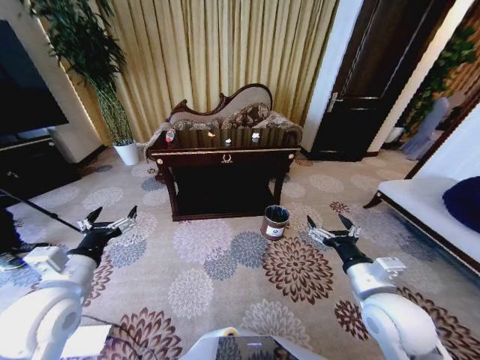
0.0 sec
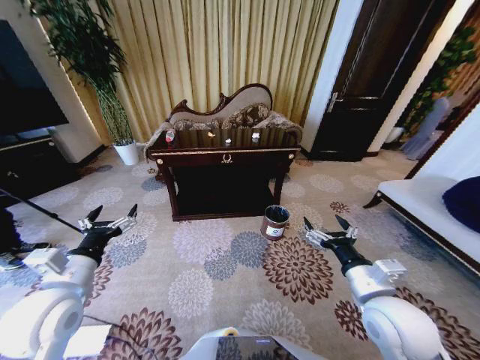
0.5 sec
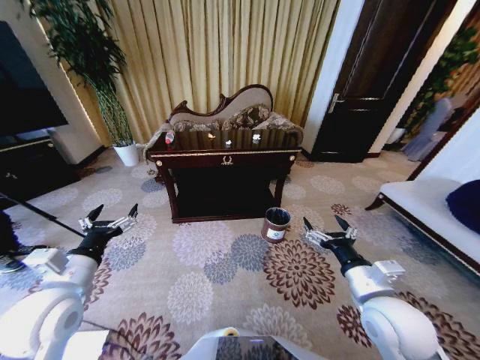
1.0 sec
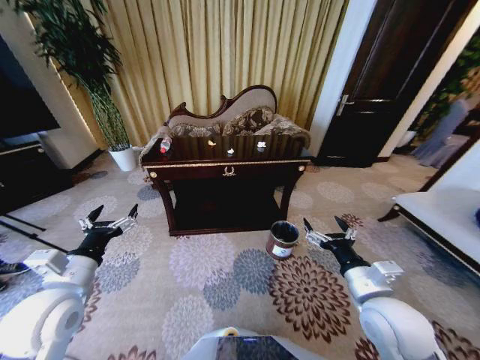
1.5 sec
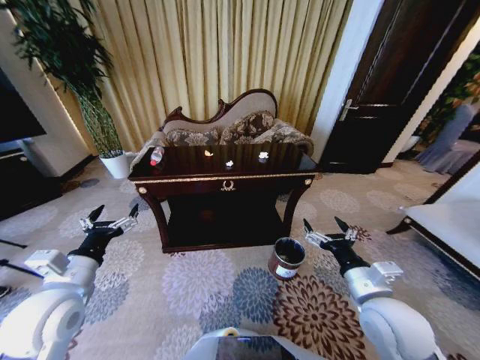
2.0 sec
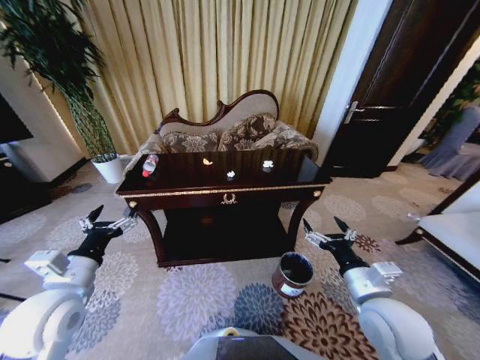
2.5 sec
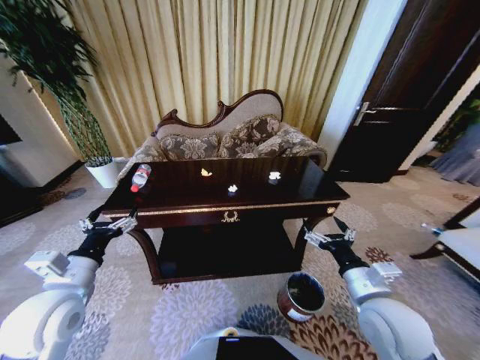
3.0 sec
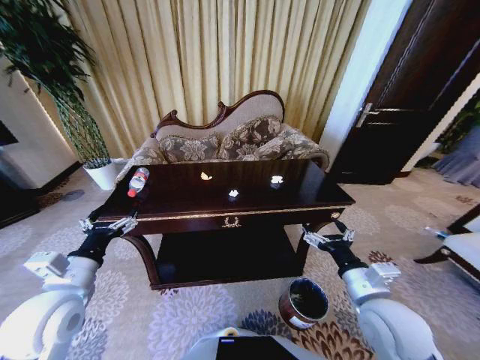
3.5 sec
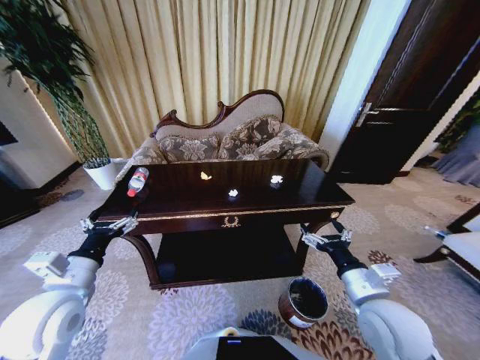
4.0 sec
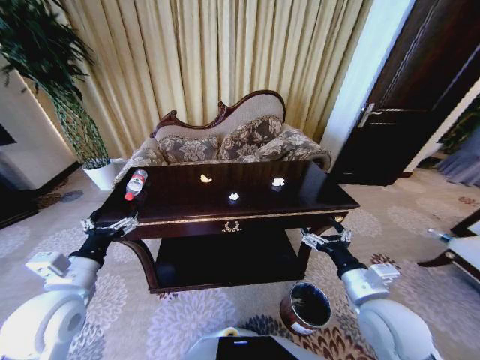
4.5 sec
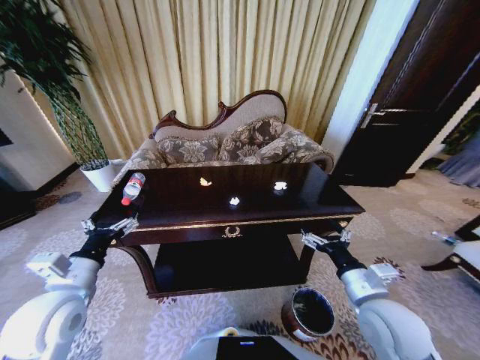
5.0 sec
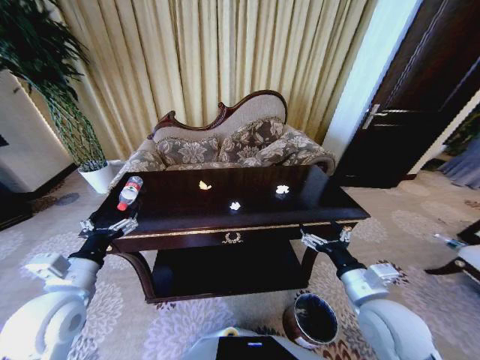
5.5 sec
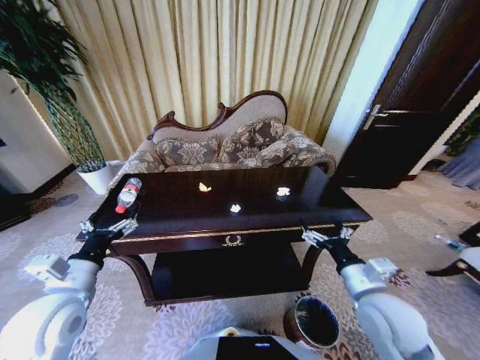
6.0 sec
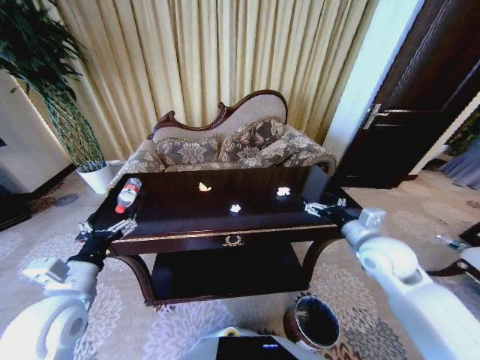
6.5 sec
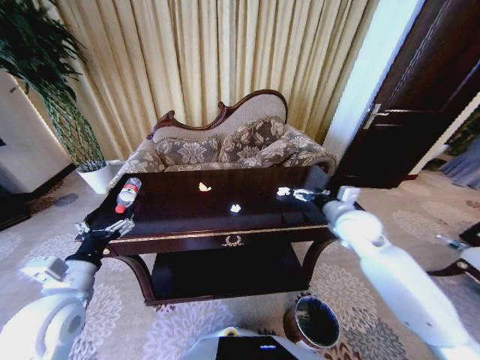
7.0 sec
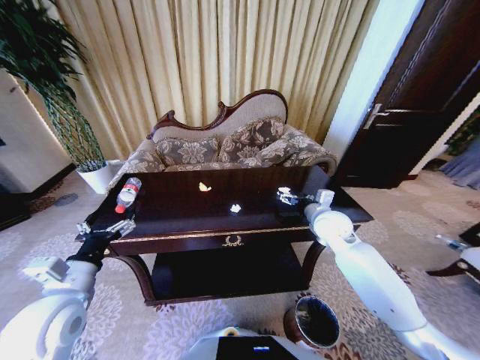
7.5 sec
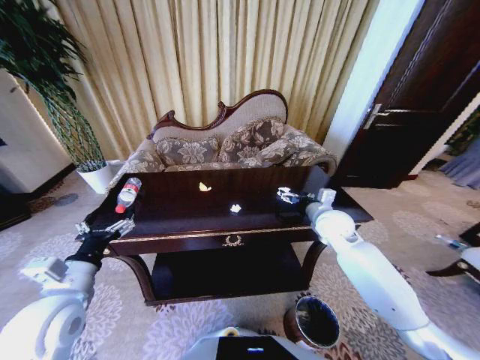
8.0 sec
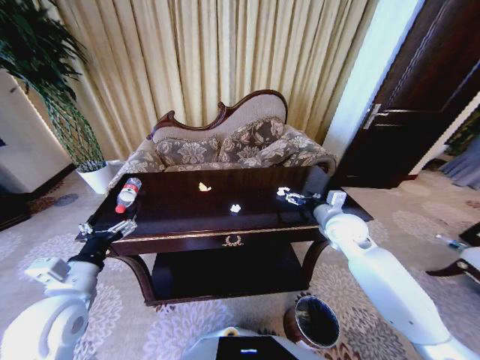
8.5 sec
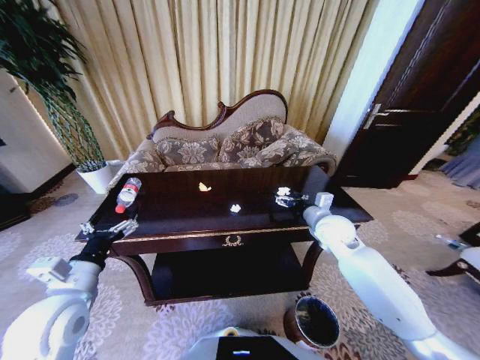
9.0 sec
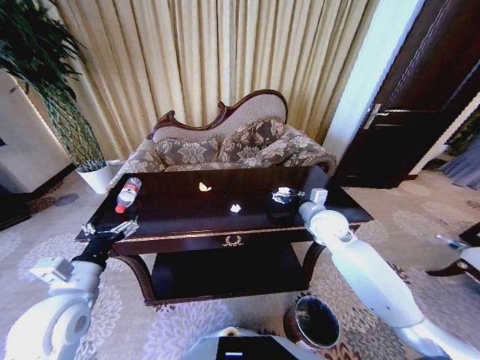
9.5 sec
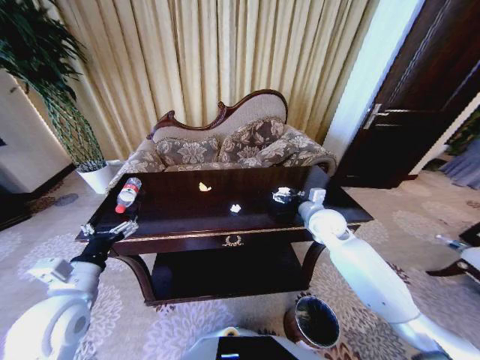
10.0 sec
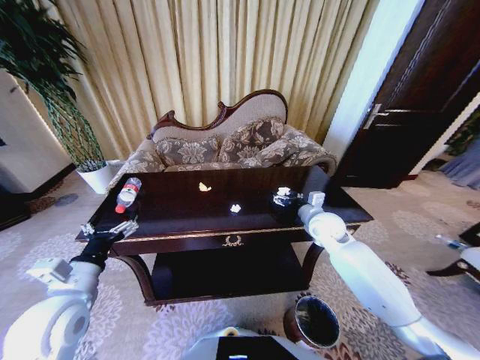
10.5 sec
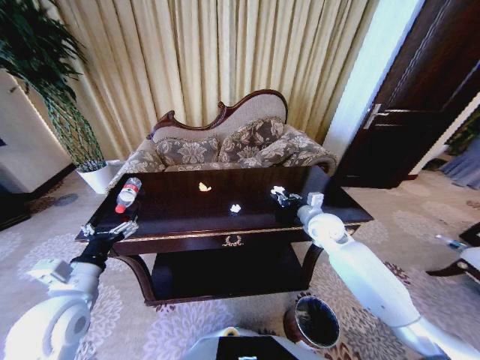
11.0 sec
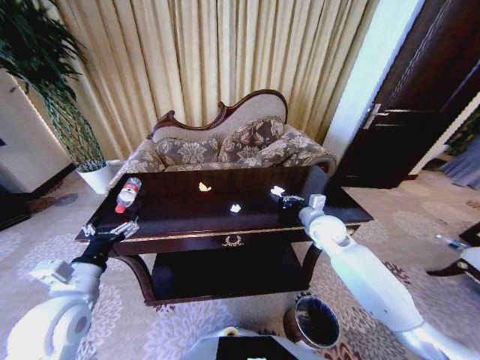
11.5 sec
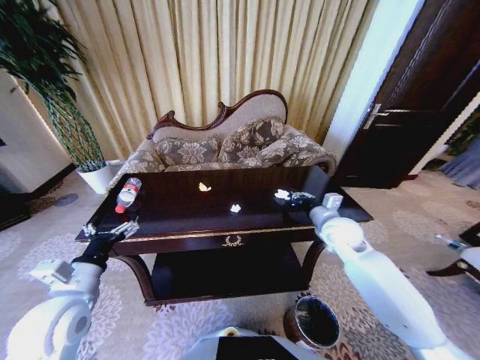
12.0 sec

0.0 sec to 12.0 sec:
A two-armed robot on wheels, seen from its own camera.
Task of the whole recording: Move to the front of the table and place the trash on the table into the trash bin.
6.0 sec to 8.0 sec: The right gripper travels forward by approximately 25 cm.
8.0 sec to 10.0 sec: There are only small adjustments of the grippers.
10.0 sec to 12.0 sec: The right gripper ends up some 5 cm from where it was, and closes up.

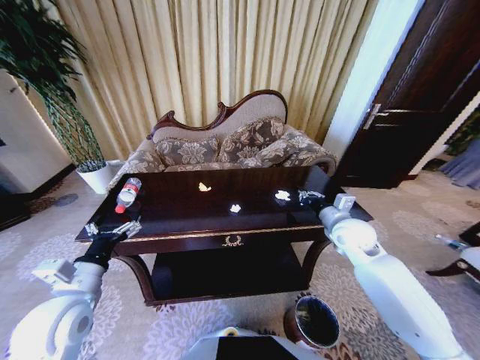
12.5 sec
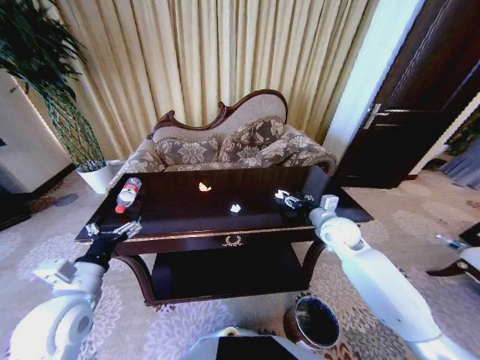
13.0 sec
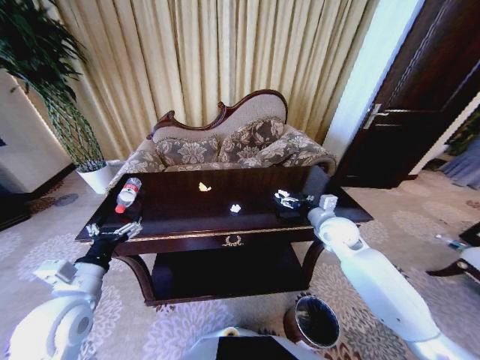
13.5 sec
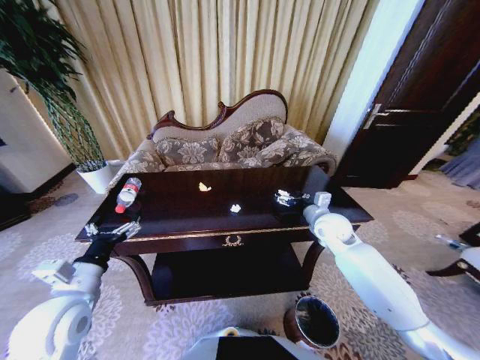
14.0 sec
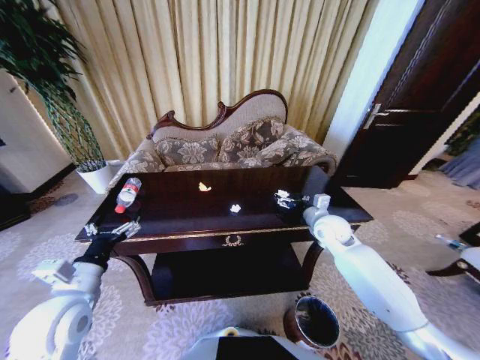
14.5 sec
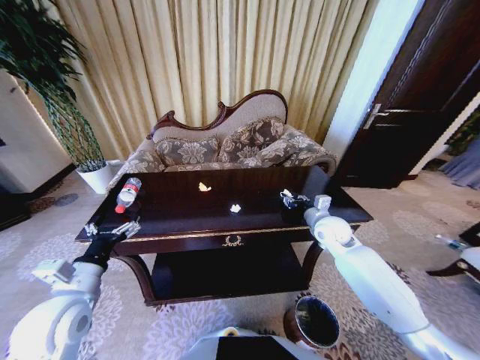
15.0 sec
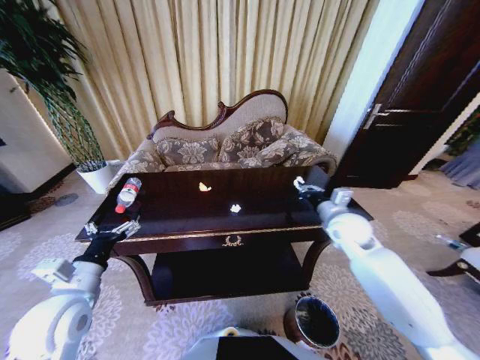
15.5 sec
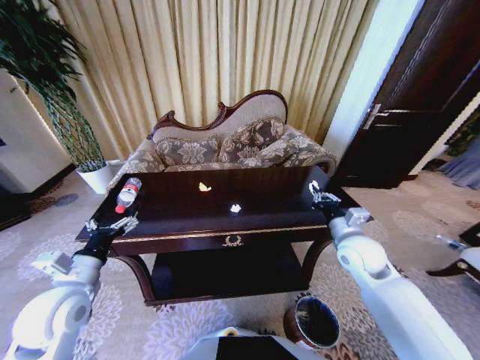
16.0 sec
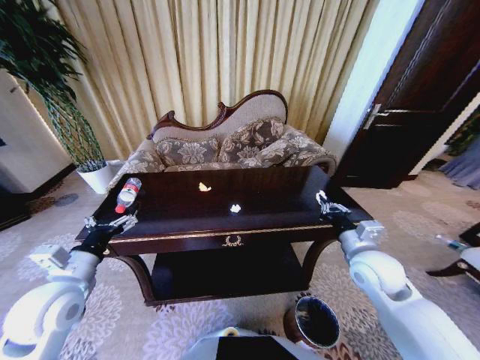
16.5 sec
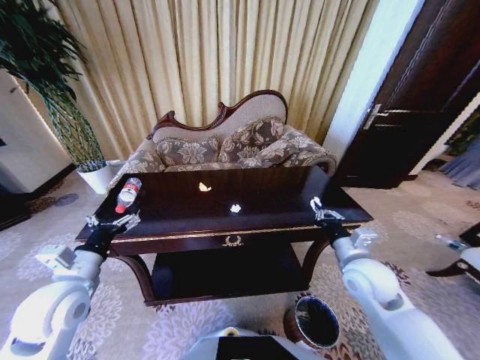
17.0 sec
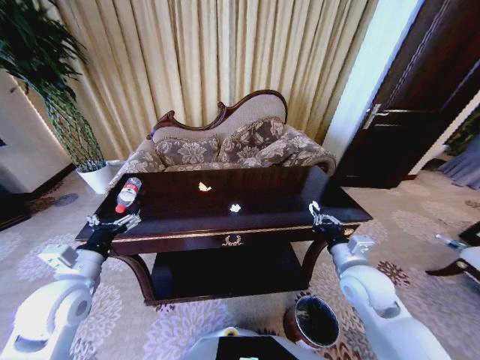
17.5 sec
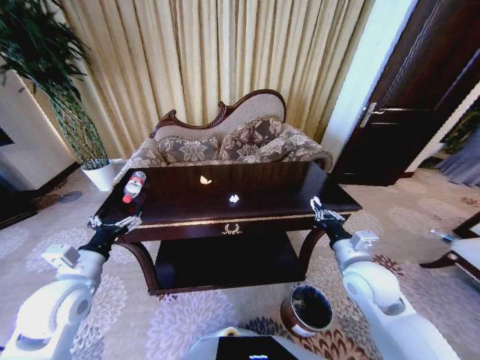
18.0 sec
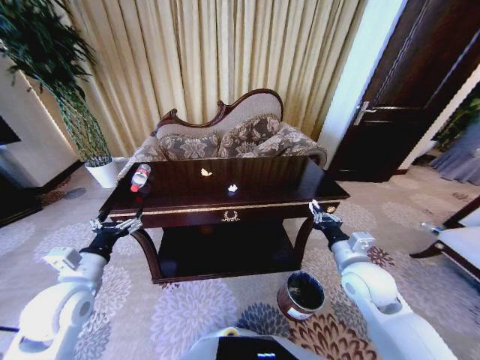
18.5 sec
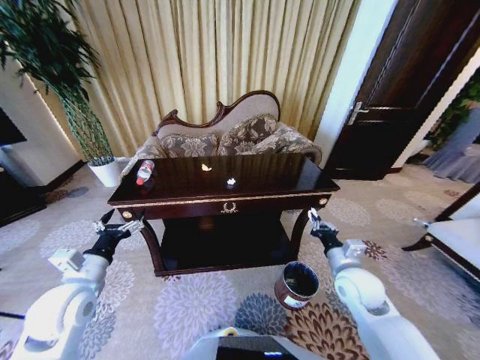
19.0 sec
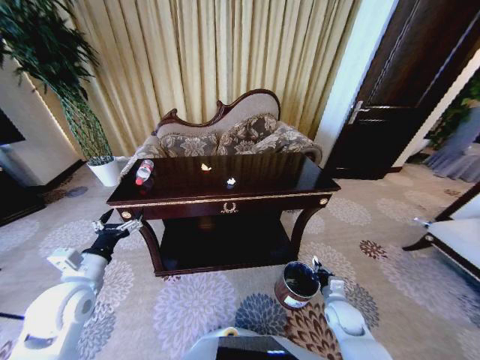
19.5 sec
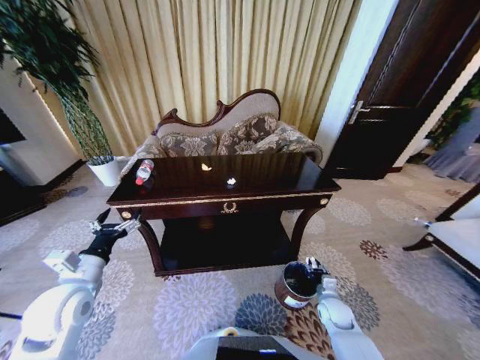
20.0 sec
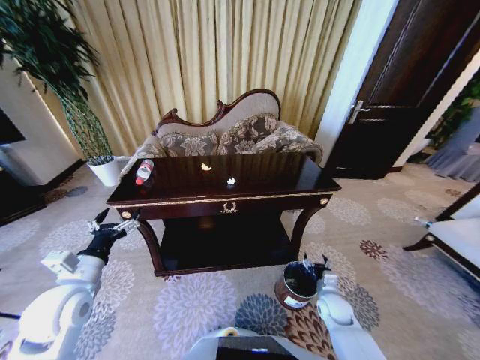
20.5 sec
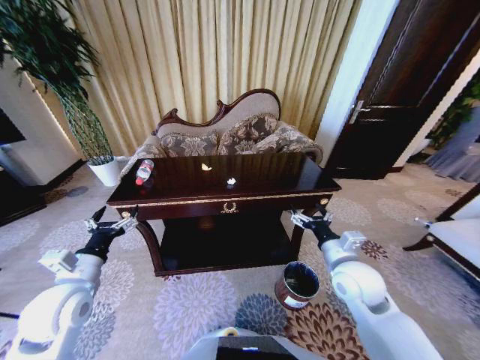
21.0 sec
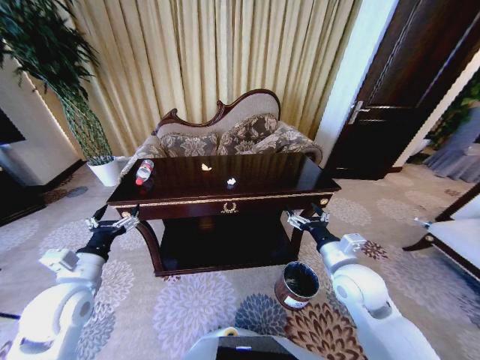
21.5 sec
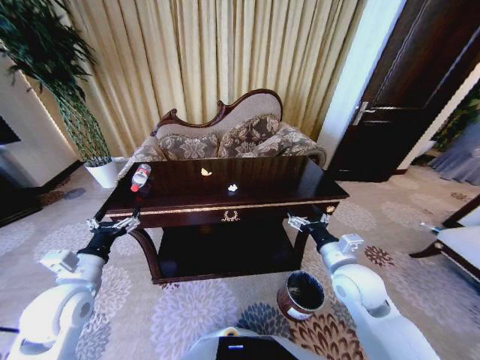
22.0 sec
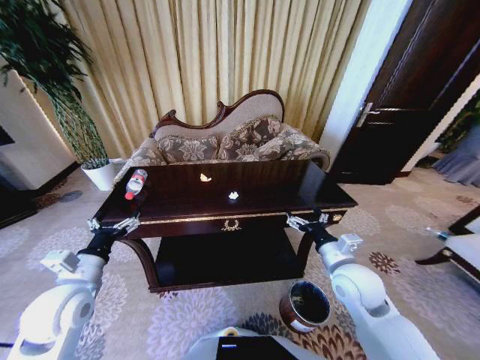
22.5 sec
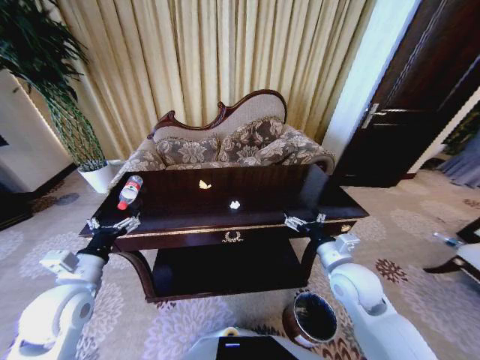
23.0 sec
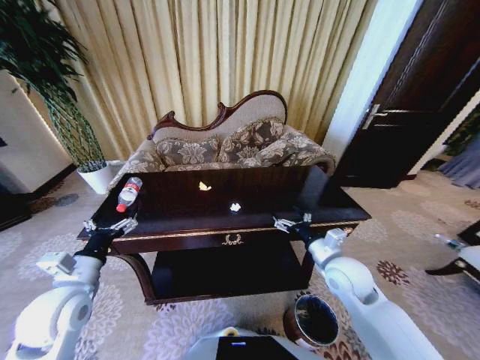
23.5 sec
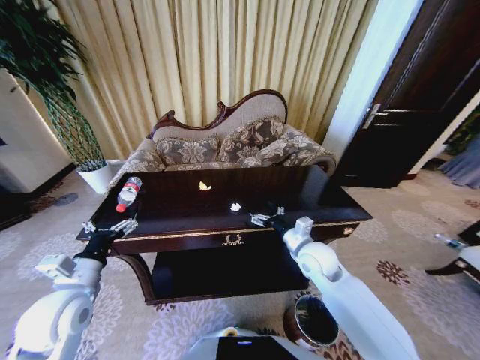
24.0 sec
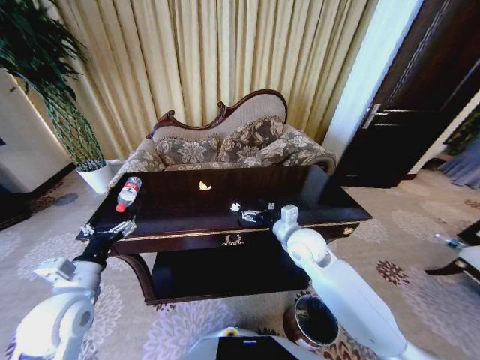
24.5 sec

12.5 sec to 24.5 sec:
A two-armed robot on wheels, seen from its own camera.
Task of the whole recording: Move to the front of the table and place the trash on the table into the trash bin.
12.5 sec to 14.5 sec: The right gripper moves some 5 cm, and opens its fingers.
14.5 sec to 16.5 sec: The right gripper shifts approximately 15 cm backward, and closes.
18.5 sec to 20.5 sec: The right gripper moves downward, approximately 20 cm, and opens up.
20.5 sec to 22.5 sec: The right gripper moves upward, roughly 20 cm.
22.5 sec to 24.5 sec: The right gripper moves forward and to the left, roughly 15 cm.

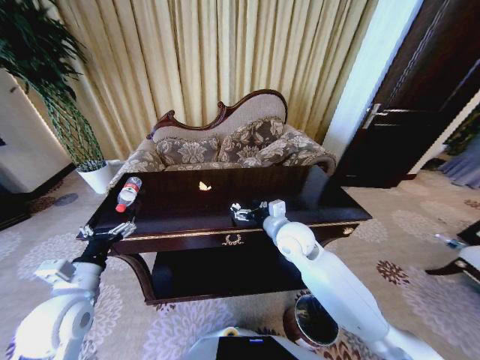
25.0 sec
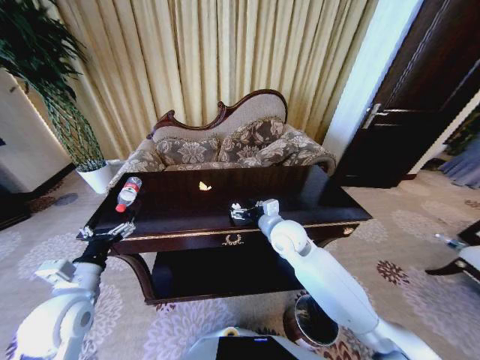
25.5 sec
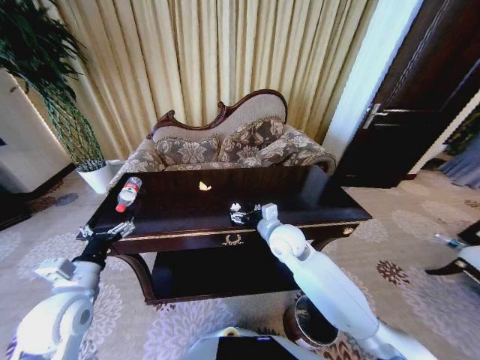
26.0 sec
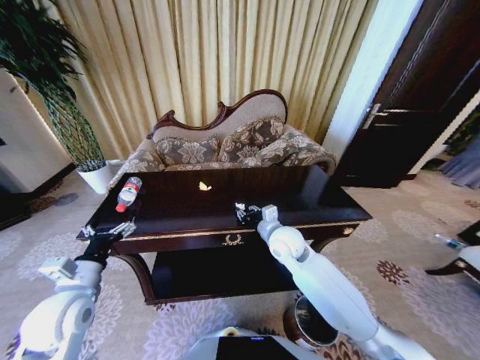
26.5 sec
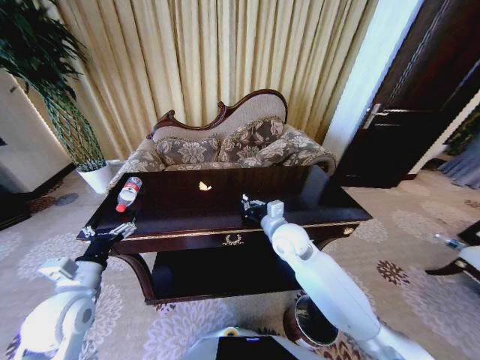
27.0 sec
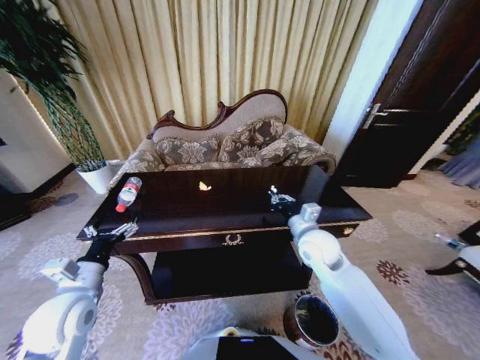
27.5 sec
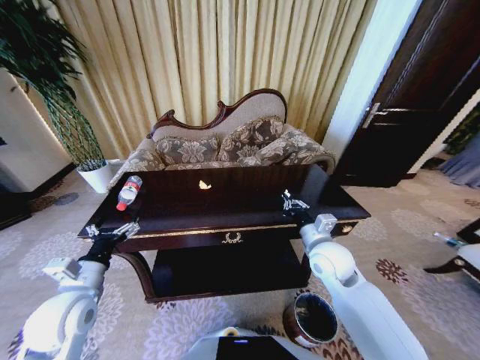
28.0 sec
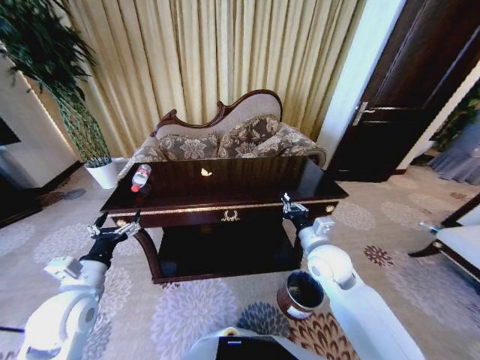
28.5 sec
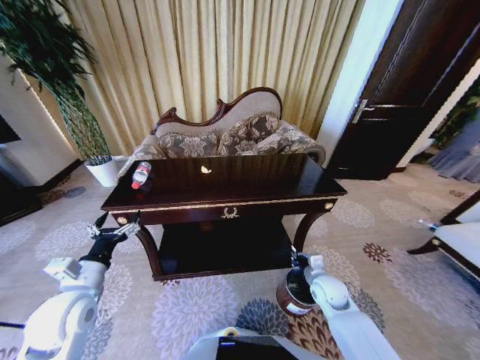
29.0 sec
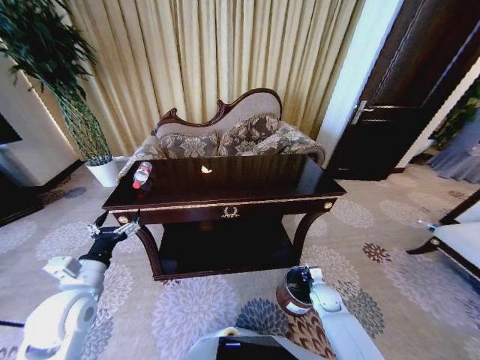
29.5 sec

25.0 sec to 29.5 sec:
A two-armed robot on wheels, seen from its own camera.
Task of the whole recording: Move to the front of the table and place the trash on the table into the trash bin.
25.0 sec to 27.0 sec: The right gripper closes.
27.0 sec to 29.5 sec: The right gripper is displaced downward and to the right by some 35 cm.
